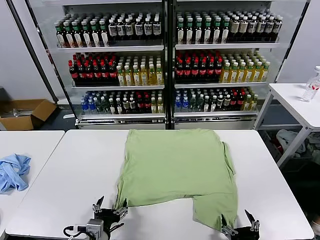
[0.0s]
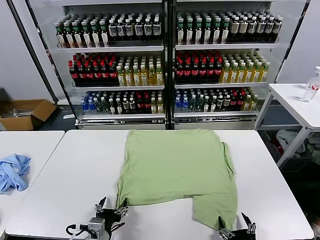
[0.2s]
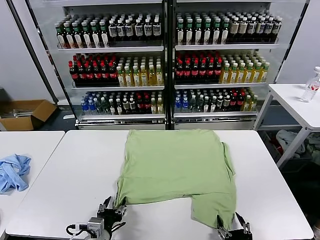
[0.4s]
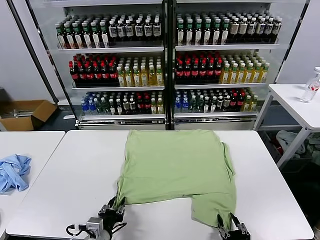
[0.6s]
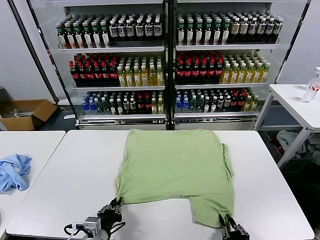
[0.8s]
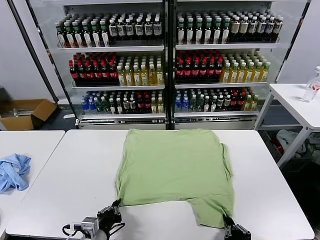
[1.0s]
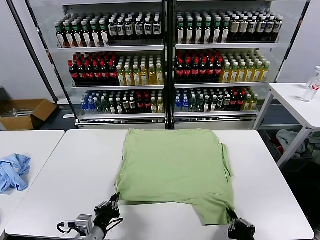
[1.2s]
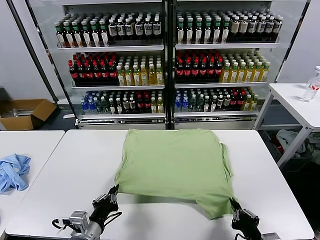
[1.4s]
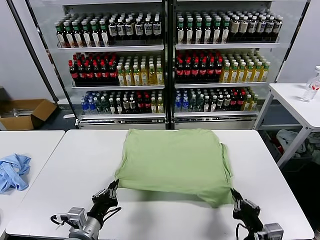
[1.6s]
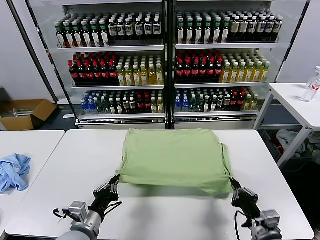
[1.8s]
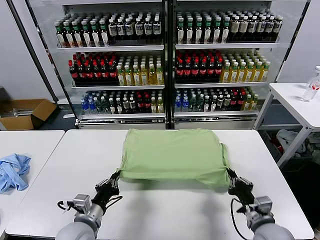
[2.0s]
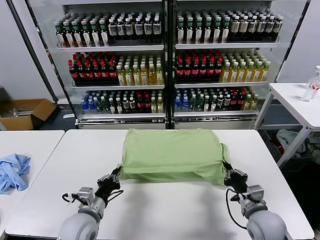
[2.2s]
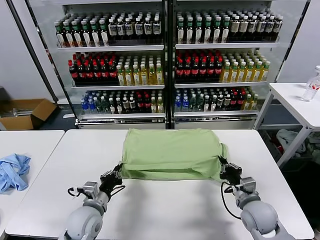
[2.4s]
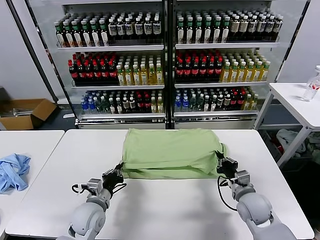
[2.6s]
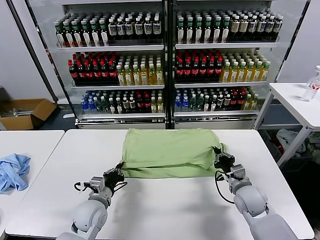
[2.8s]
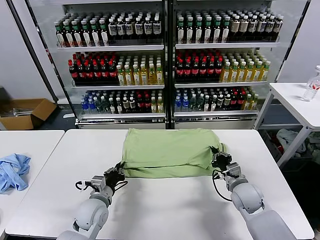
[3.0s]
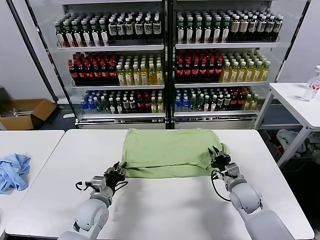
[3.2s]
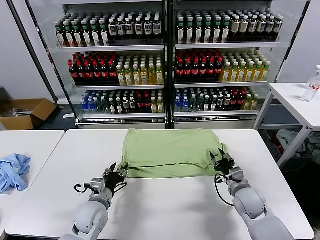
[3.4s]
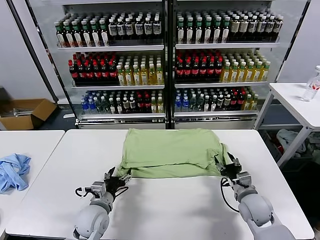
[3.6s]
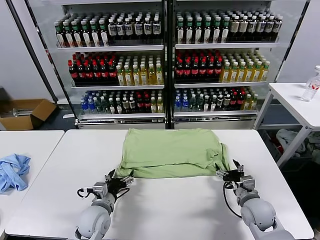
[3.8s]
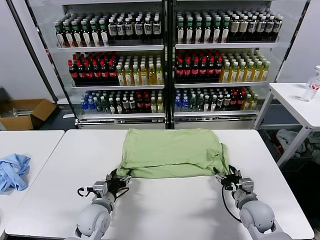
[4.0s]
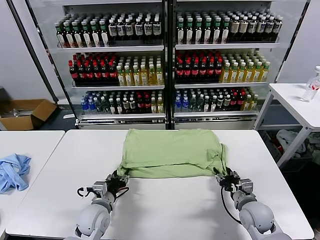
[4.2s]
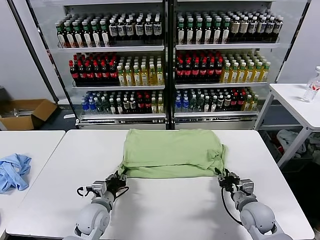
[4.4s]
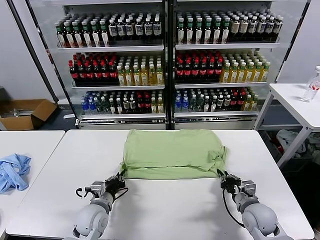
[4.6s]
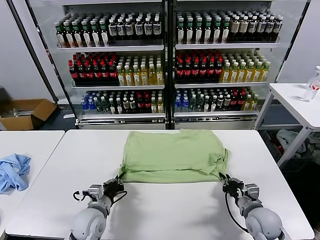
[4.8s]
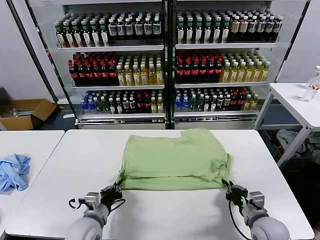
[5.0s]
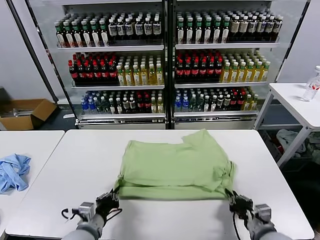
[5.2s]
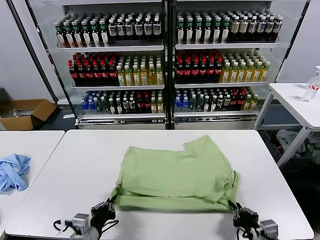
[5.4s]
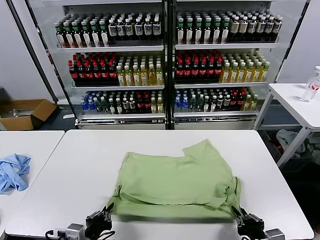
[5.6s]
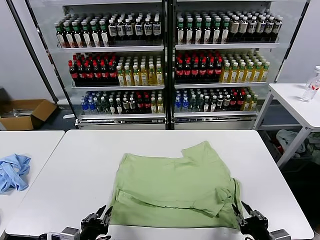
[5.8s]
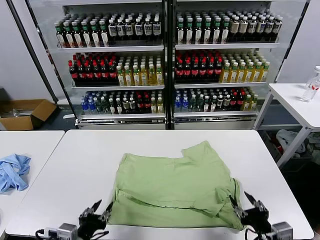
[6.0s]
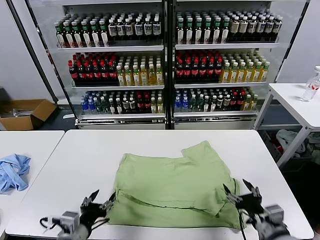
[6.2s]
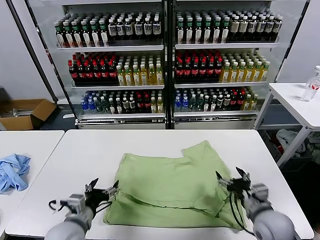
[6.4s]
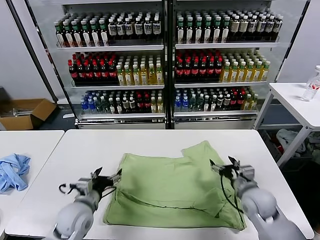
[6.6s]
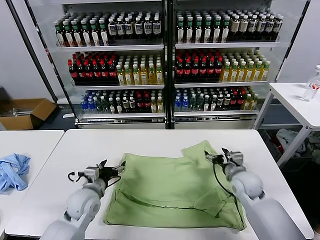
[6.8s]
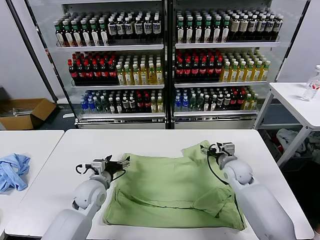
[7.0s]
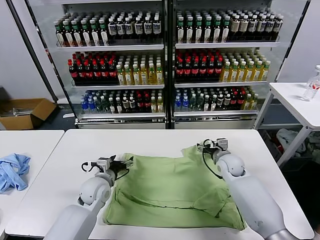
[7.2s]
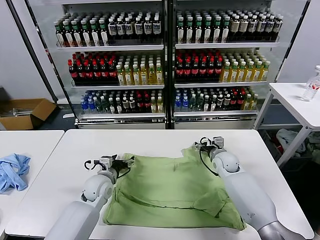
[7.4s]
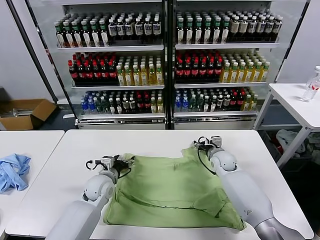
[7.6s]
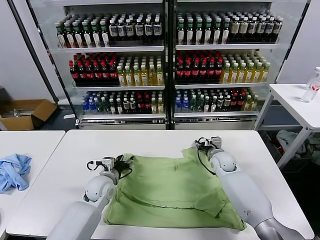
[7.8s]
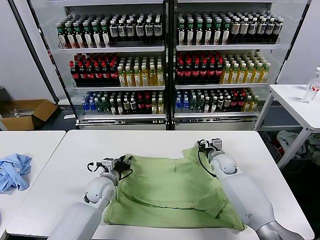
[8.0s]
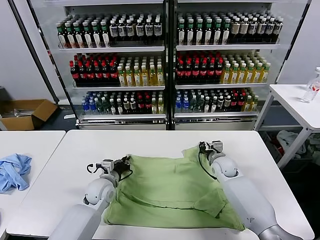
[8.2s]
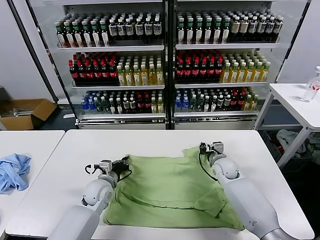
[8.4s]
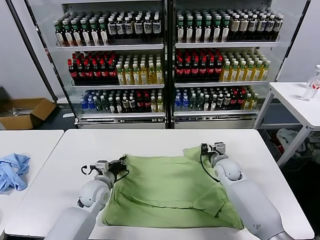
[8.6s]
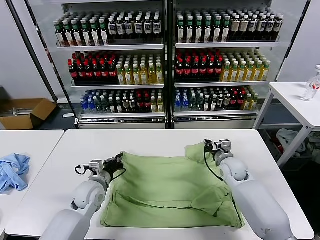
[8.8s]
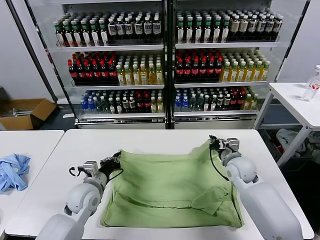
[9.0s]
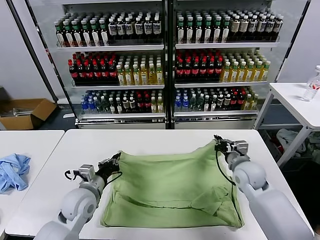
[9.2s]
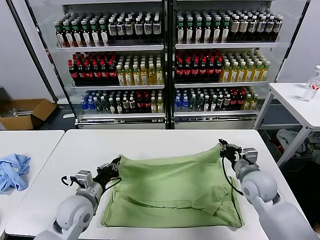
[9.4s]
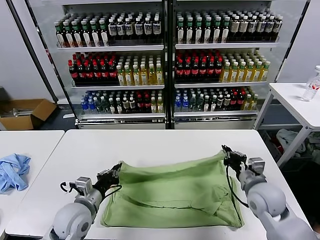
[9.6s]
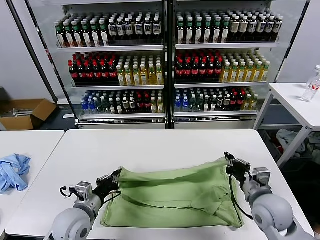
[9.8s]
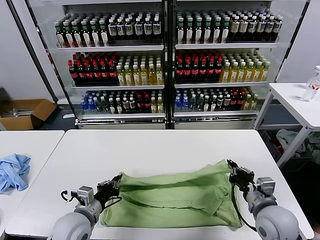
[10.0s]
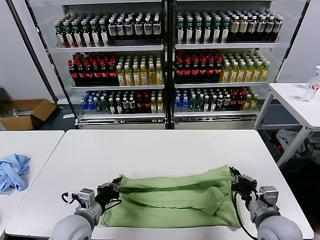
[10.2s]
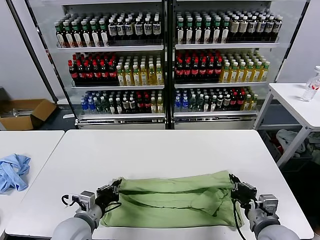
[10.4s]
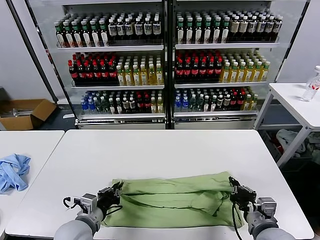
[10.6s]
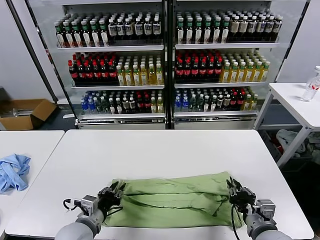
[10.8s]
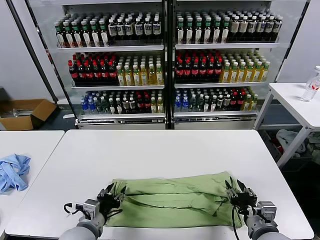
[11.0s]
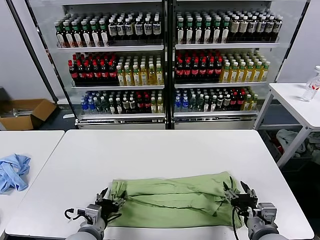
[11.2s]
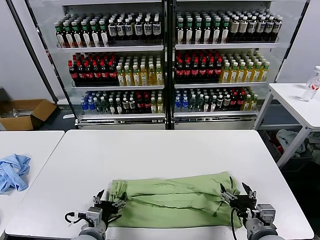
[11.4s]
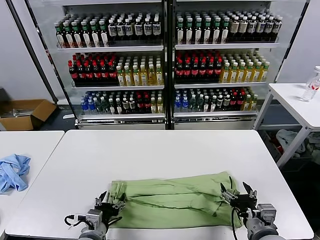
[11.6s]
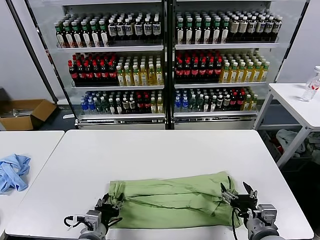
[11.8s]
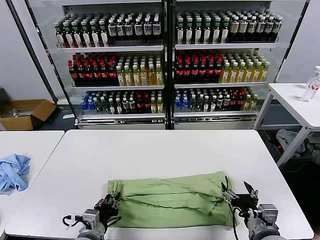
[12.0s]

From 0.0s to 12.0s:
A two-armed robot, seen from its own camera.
Task of the whole recording: fold and organize the clothes.
Step, from 0.0s to 1.0s: use both grippers simultaneously to clamp the lower edge of the clothing fabric.
Step, from 1.2s to 3.0s: use both grippers to drag the lower edge of the fabric forward and fold it over the upper edge.
Step, from 3.4s to 5.6s: Drag the clothes downward with both gripper.
Step, from 6.0s to 8.2s: use both grippers simultaneously to clamp the upper edge of the clothing fabric.
Step, from 8.4s to 10.8s: use both grippers to drag the upper edge of the fabric backward and fold it over the lower edge.
Step, from 11.0s to 12.0s: use the left gripper to clamp the left edge of the fabric.
From 1.6s to 3.0s: The left gripper travels forward and downward by approximately 15 cm. Meanwhile the right gripper travels forward by roughly 20 cm.
From 3.0s to 4.4s: The left gripper opens, then closes again, while the right gripper shifts roughly 5 cm backward, and opens, then closes again.
From 4.4s to 6.0s: Both grippers move backward and upward, some 20 cm. The right gripper opens.
From 6.0s to 7.6s: The two grippers go roughly 30 cm forward.
From 7.6s to 9.0s: The left gripper moves backward, roughly 5 cm, and closes. Meanwhile the right gripper shifts some 10 cm backward and upward, and closes up.
From 9.0s to 10.4s: The left gripper moves backward, some 10 cm. Meanwhile the right gripper travels backward by some 20 cm.
From 10.4s to 12.0s: The right gripper opens, while the left gripper ends up some 5 cm from where it was, and opens up.

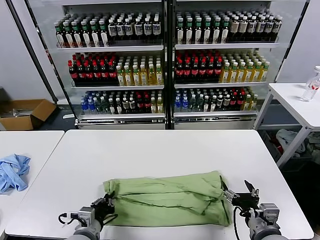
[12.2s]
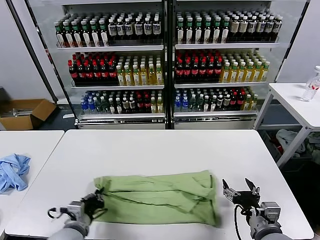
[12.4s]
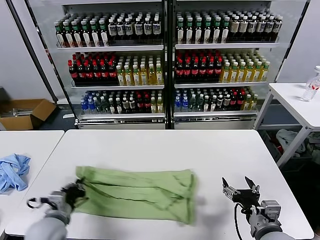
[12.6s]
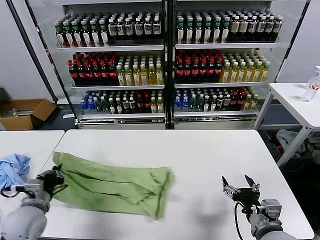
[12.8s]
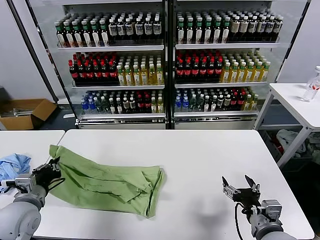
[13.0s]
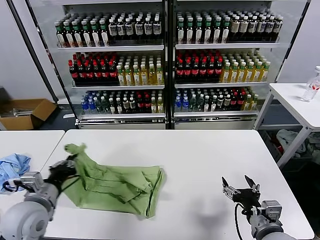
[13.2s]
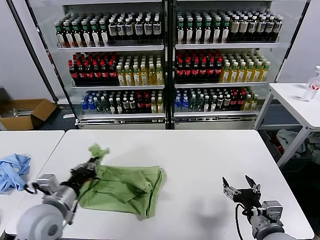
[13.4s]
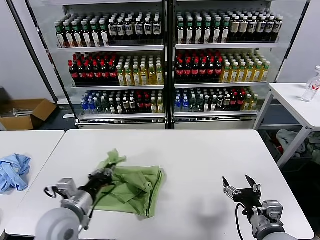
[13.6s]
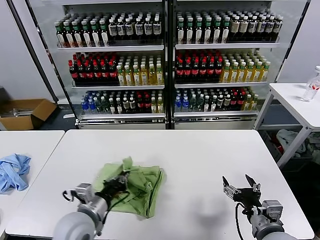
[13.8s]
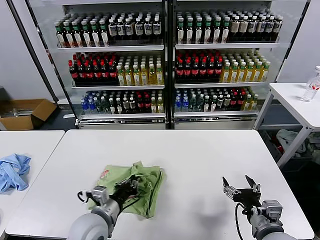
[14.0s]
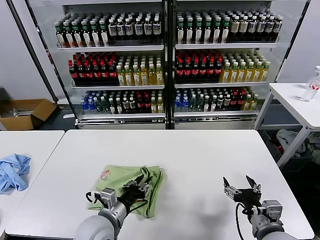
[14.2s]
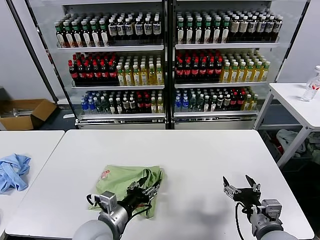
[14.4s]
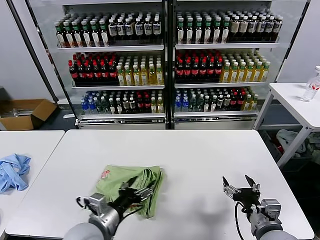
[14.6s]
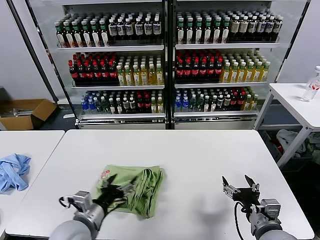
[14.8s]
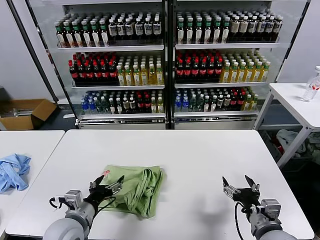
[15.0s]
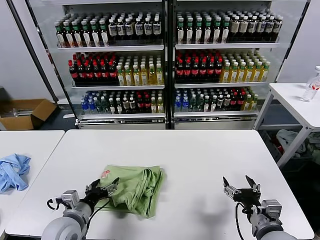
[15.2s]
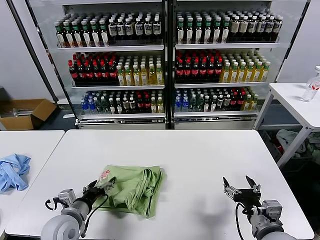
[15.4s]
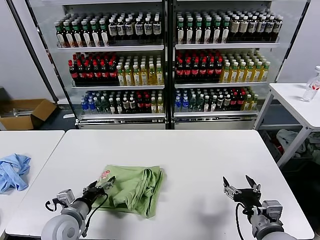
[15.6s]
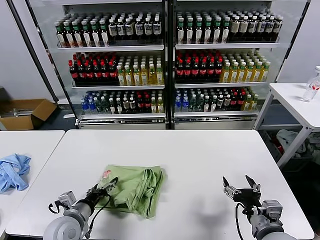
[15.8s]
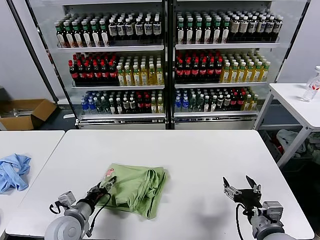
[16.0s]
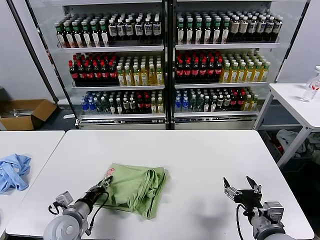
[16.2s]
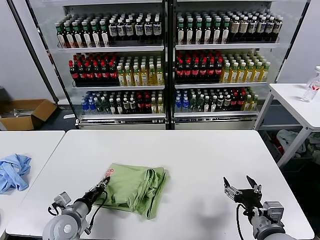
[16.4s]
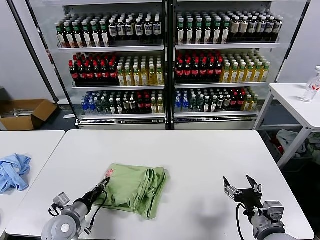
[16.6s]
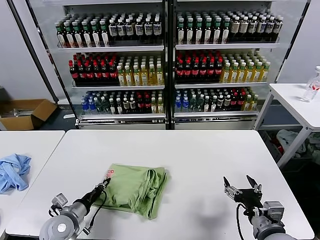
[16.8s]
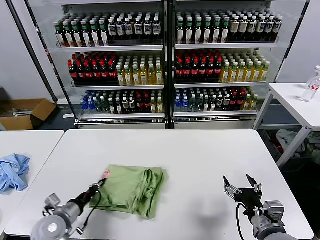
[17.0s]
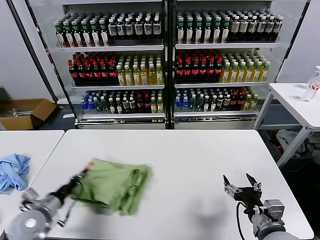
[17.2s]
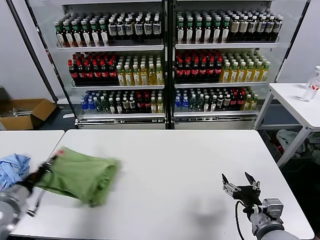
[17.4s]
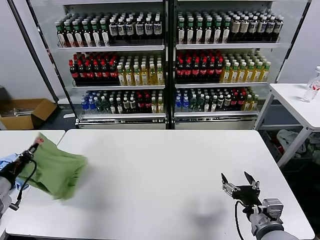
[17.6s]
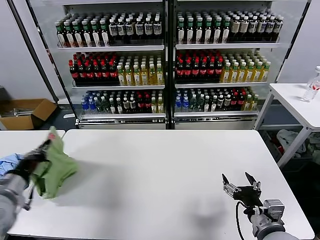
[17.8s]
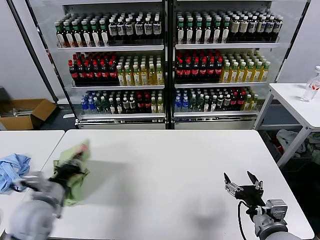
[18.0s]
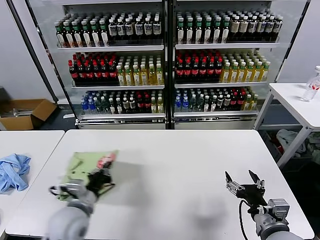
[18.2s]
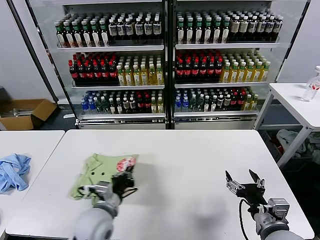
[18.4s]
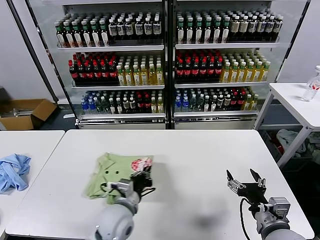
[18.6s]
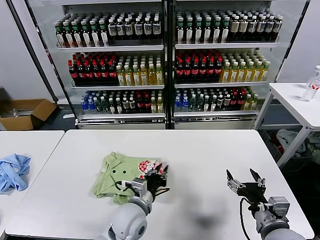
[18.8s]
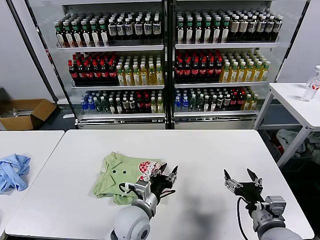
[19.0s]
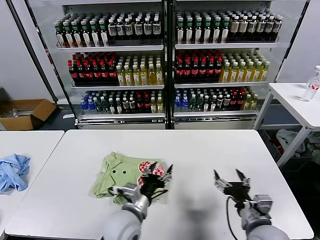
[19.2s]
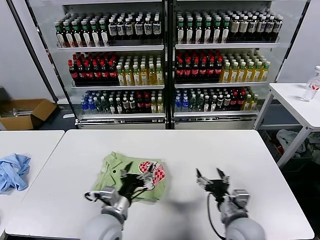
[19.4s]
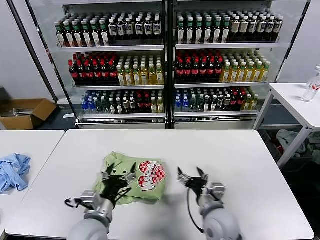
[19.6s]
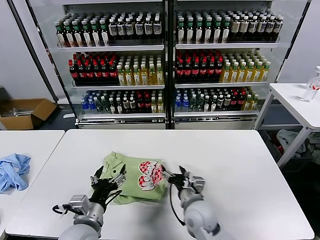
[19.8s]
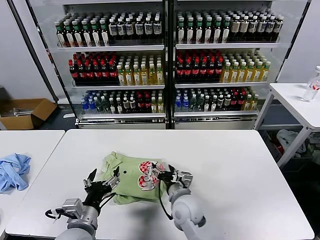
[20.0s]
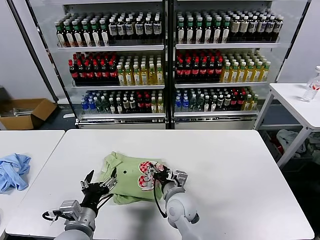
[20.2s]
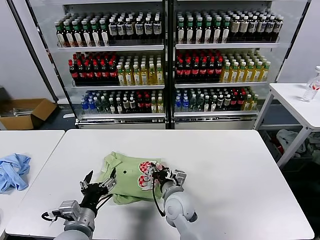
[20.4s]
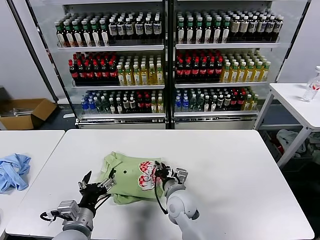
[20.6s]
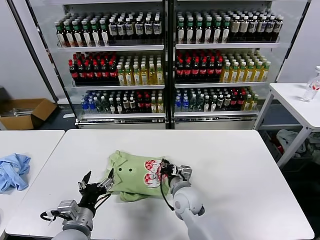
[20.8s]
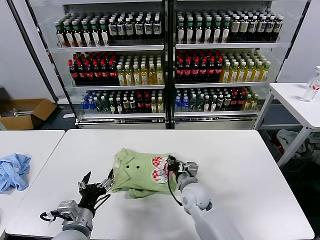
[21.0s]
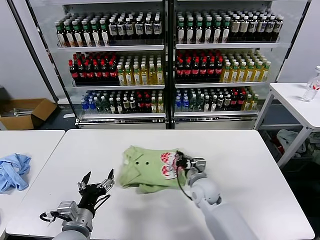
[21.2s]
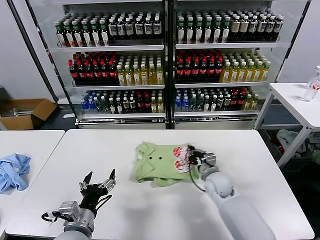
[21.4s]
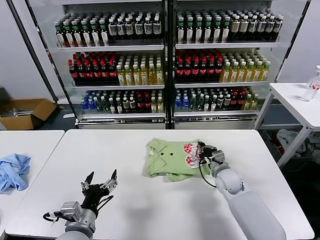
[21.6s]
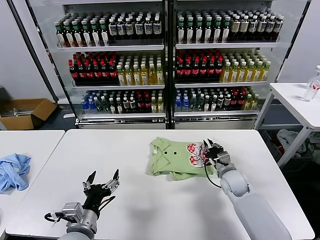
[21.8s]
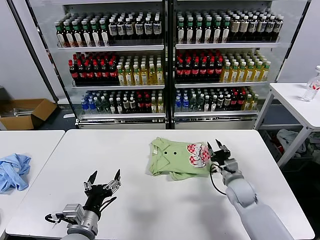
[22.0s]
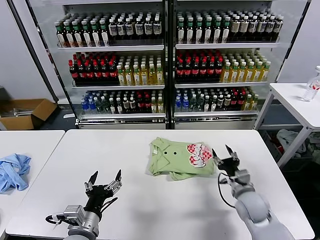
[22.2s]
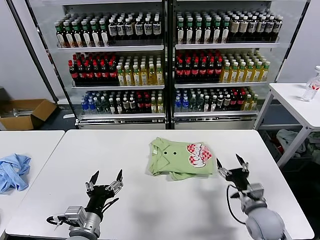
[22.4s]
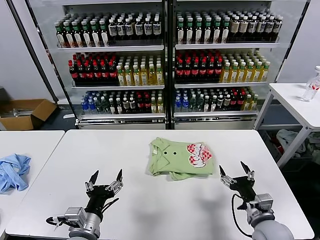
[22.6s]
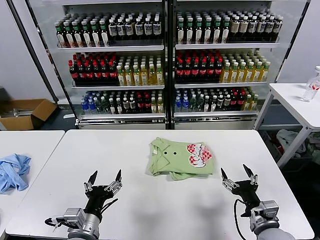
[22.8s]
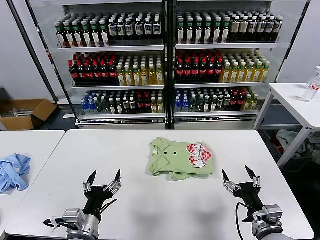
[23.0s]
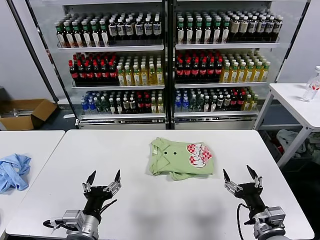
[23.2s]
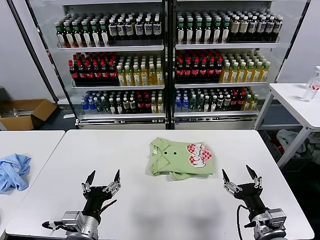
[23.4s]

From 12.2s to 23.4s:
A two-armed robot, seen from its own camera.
Task of the whole recording: fold and organize the clothes.
Step, from 12.2s to 14.4s: use the left gripper to drag the left edge of the fabric to the left and folds it over the right edge.
Step, from 14.6s to 18.6s: Flip the folded clothes over with left gripper.
Step, from 19.0s to 21.8s: Drag the clothes to the center of the table.
From 12.2s to 13.8s: The left gripper travels upward by about 5 cm, and travels to the left and back again, about 15 cm each way.
From 13.8s to 15.4s: The left gripper shifts about 10 cm to the left and downward, and opens its fingers.
From 15.4s to 17.0s: The left gripper shifts approximately 5 cm to the left, and closes up.
From 17.0s to 18.6s: The left gripper moves to the right, roughly 20 cm.
From 18.6s to 20.2s: The right gripper moves to the left and forward, about 25 cm. The left gripper moves to the left and backward, approximately 10 cm, and opens.
From 20.2s to 21.8s: The right gripper shifts approximately 25 cm to the right and forward, and closes.
From 21.8s to 23.4s: The right gripper is displaced backward by some 25 cm, and opens its fingers.
